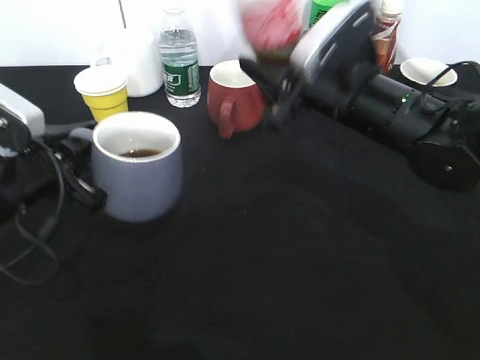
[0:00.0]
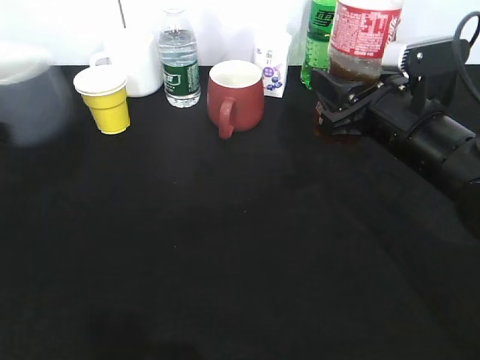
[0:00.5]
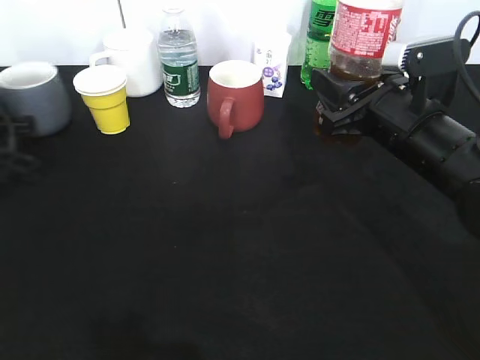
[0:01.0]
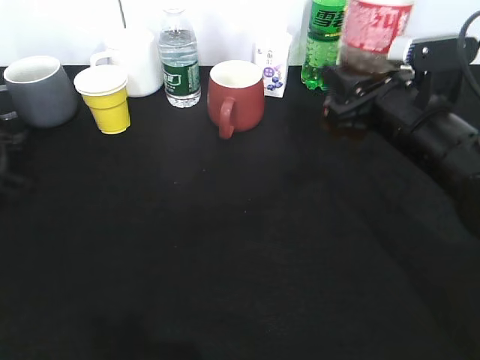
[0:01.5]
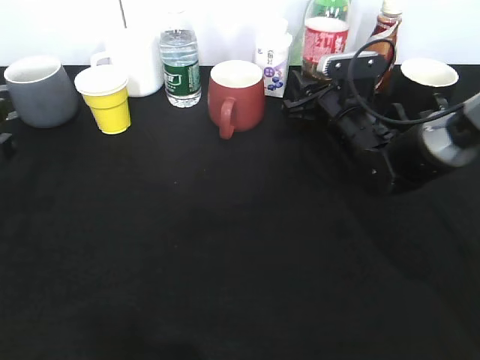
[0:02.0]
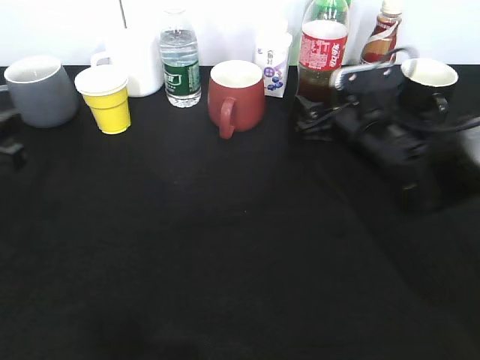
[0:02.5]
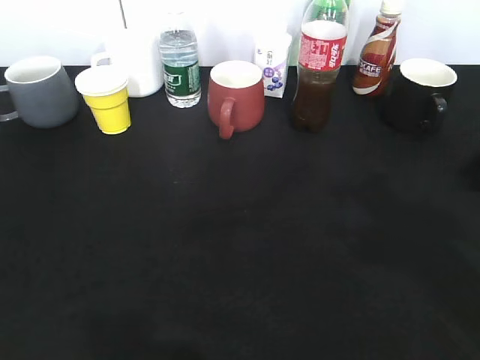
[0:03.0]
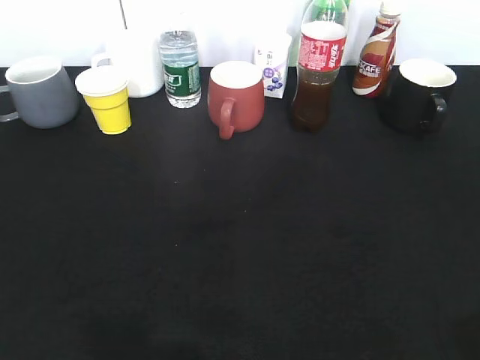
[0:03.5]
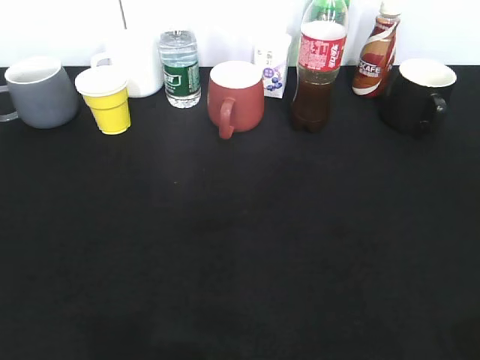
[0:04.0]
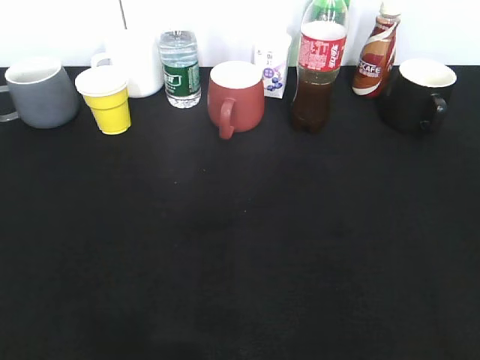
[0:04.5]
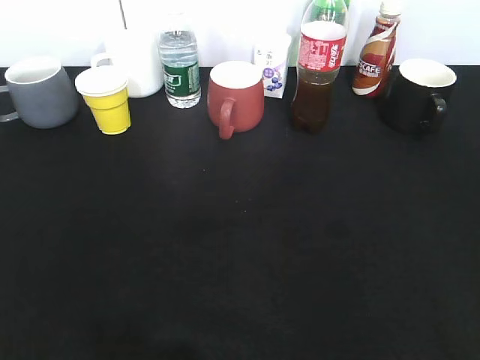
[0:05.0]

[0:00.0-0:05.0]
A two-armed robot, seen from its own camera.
Step, 0:00.0 to 0:01.5: Place the grey cup on the table with left gripper.
Step, 0:02.0 to 0:02.5: Place the cola bottle on the table with right gripper.
0:00.0 to 0:02.5: The left gripper goes approximately 5 cm to the left, reaches some 15 cm forward, then returns, and opens its fingers; the right gripper moves downward and to the right, roughly 10 cm, and opens its fingers.
0:02.5 to 0:05.0: The right gripper heads backward and upward, covering some 40 cm; the left gripper travels backward by some 20 cm.
